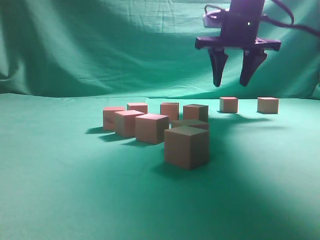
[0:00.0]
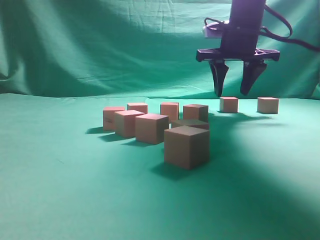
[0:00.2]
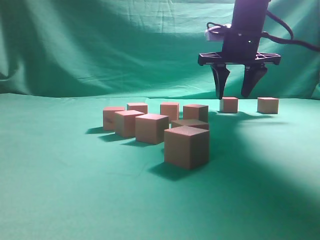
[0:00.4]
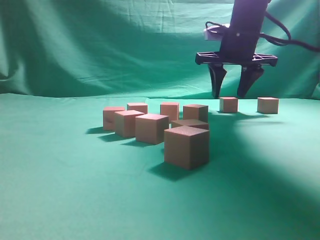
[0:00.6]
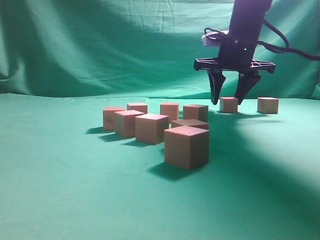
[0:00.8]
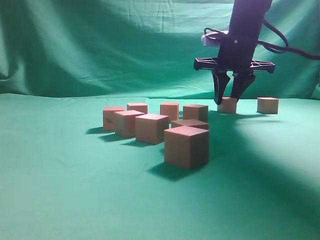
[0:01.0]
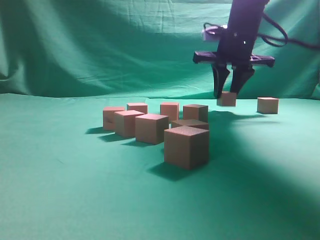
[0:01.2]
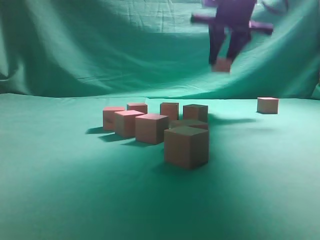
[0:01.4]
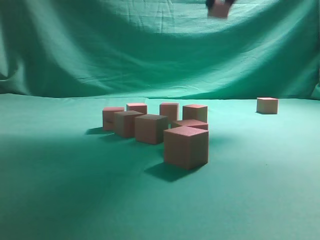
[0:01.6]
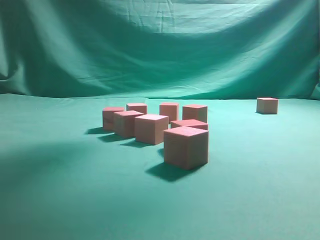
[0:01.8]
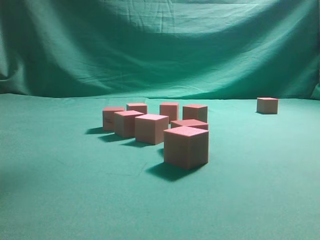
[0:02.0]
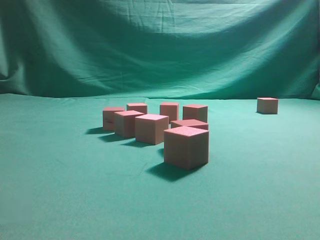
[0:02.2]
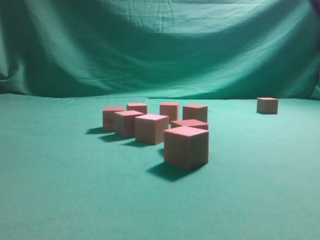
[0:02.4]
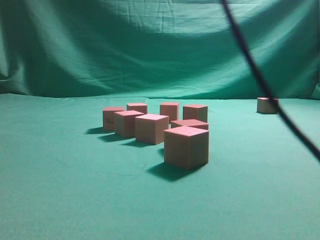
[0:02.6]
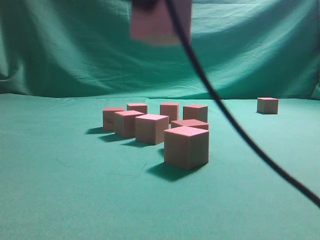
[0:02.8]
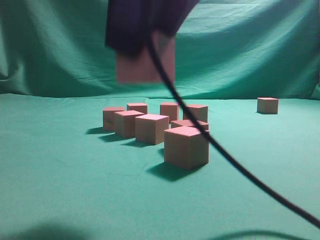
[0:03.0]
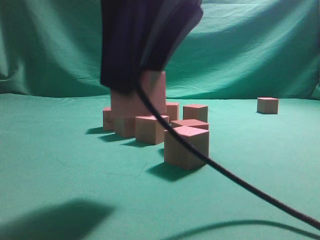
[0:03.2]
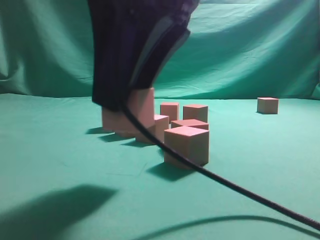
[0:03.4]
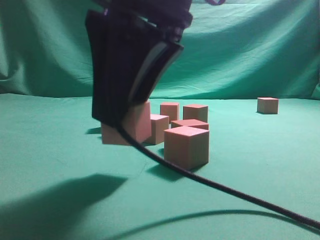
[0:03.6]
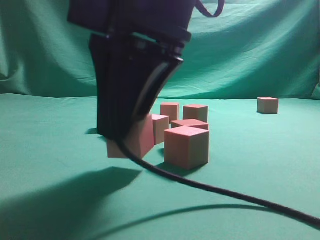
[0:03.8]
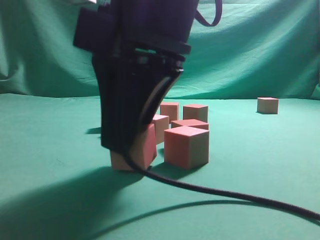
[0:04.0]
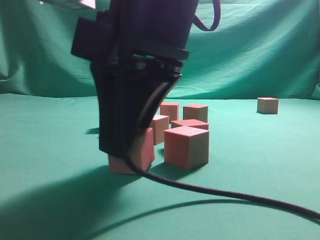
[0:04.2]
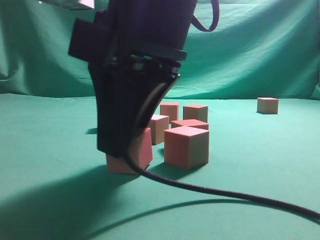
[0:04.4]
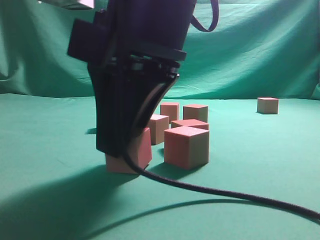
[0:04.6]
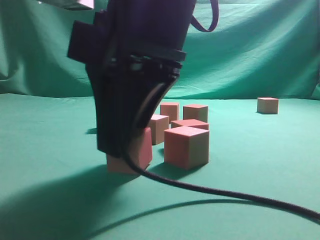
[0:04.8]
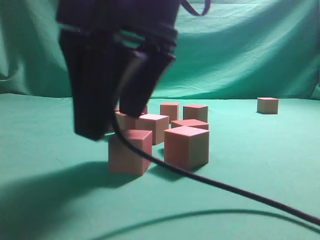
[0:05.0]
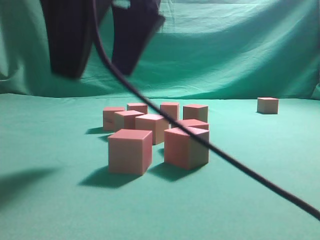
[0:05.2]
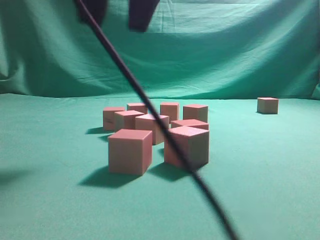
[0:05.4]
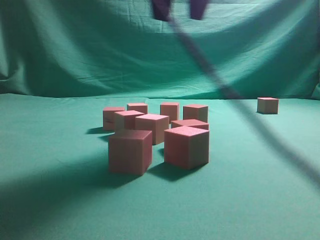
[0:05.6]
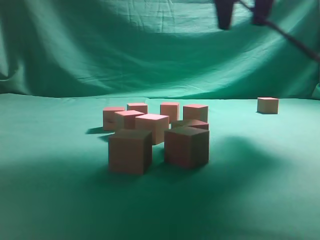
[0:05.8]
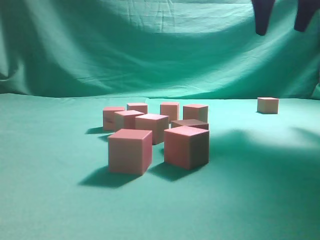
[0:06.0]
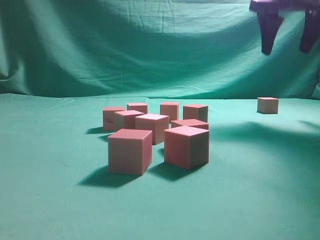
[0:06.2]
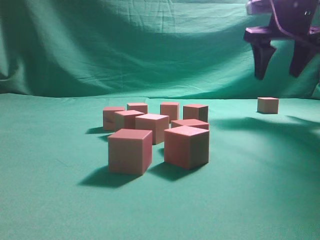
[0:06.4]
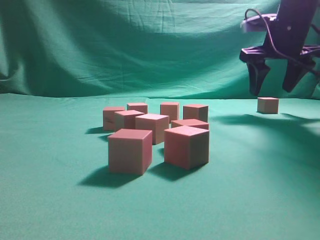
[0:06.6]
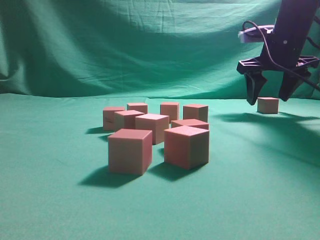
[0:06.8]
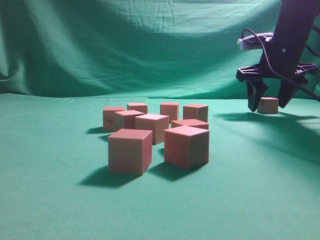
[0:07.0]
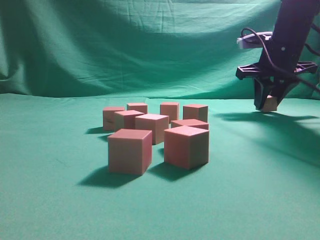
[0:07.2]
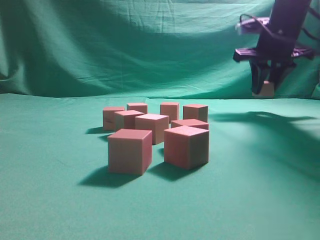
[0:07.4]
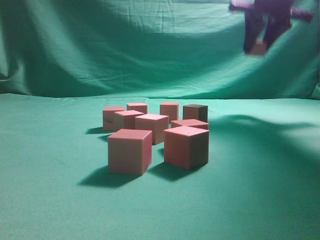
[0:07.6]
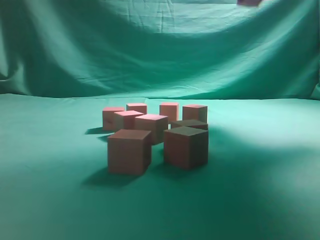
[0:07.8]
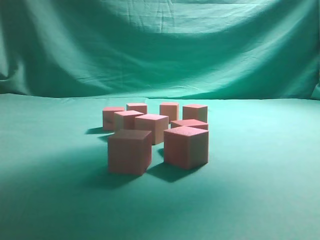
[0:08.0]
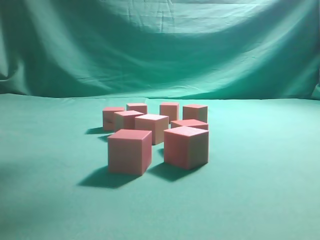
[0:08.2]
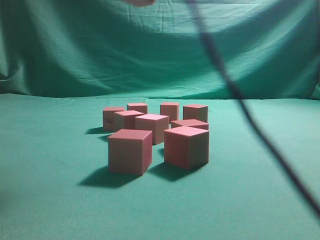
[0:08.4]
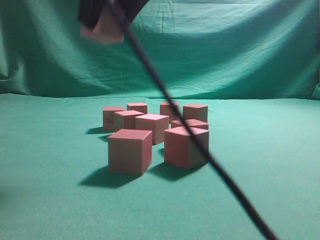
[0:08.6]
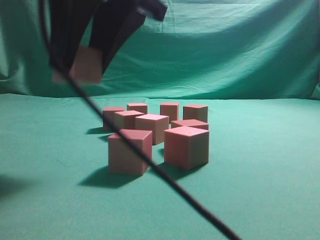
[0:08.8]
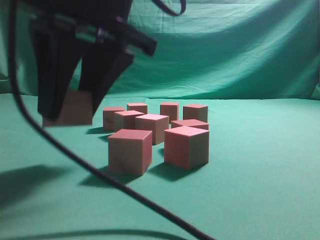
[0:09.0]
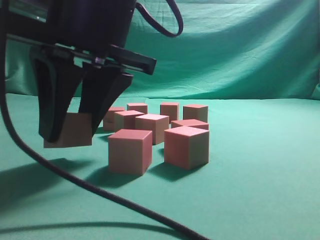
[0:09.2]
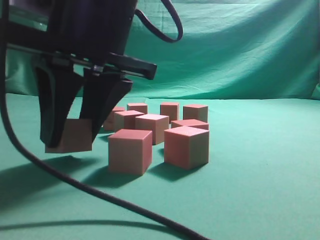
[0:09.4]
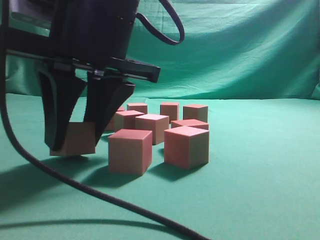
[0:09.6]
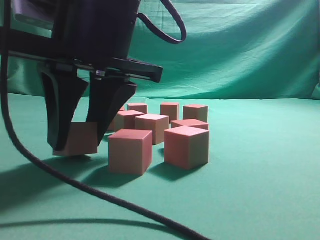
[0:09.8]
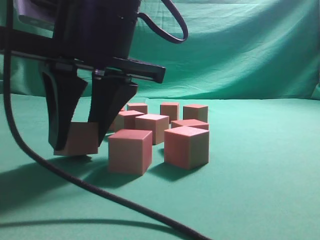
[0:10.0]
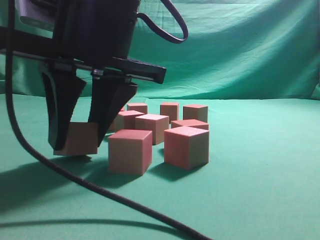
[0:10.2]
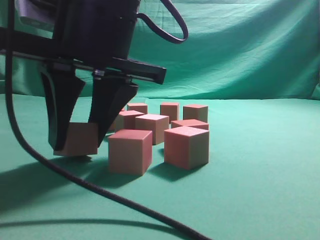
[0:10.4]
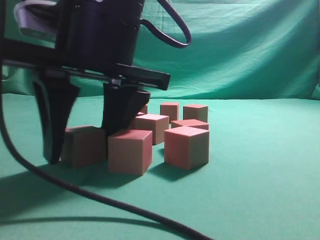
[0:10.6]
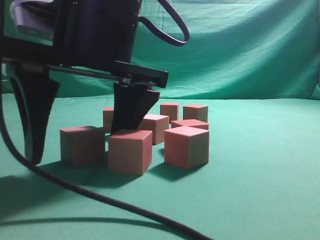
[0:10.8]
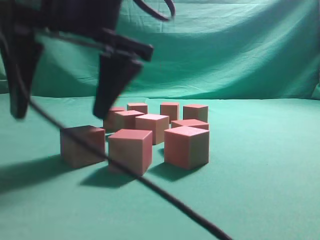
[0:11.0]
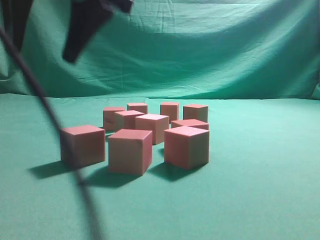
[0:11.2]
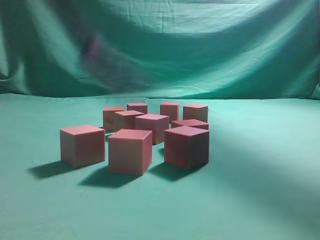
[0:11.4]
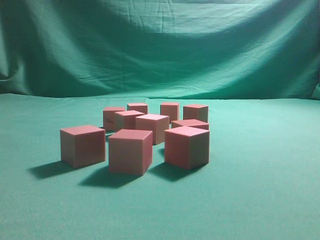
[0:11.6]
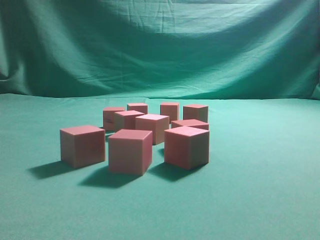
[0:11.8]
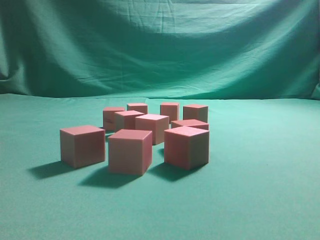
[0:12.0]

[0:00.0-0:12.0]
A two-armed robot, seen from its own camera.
Task of the whole recording: pick up the multiple cubes in two columns one by one and place them in another position on the table.
Step, 0:01.4 to 0:05.2: Place the block at the correct position to assemble the letter S.
Step, 0:05.6 to 0:07.2: Pick up the block on the table.
Step, 0:07.4 to 0:11.2: Place the block at the correct position to assemble the letter S.
0:00.0 to 0:01.6: The right gripper heads upward, covering approximately 10 cm.
0:01.6 to 0:03.0: The right gripper heads backward, covering approximately 30 cm.
0:03.0 to 0:04.4: The right gripper is displaced downward by roughly 5 cm.
0:04.4 to 0:06.0: The right gripper moves forward, to the right and upward, about 30 cm, and opens up.
0:06.0 to 0:07.6: The right gripper moves forward, approximately 5 cm, reaches approximately 15 cm downward, then returns, and closes its fingers.
0:07.6 to 0:09.0: The right gripper is displaced backward and to the left by approximately 35 cm.
0:10.4 to 0:12.0: The right gripper shifts some 35 cm upward, and closes up.
